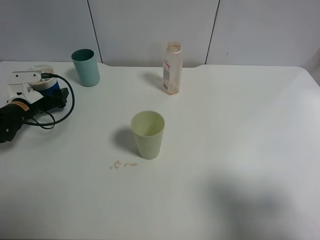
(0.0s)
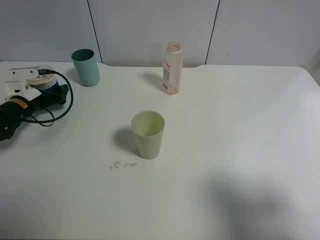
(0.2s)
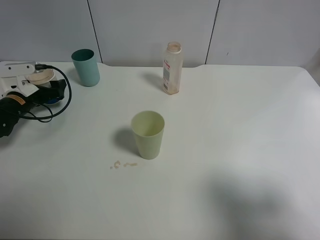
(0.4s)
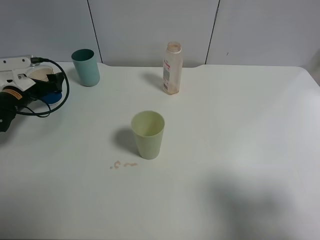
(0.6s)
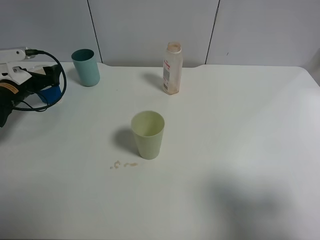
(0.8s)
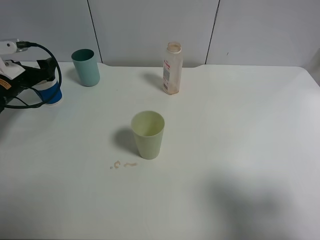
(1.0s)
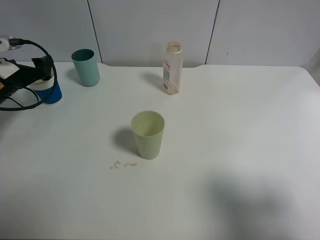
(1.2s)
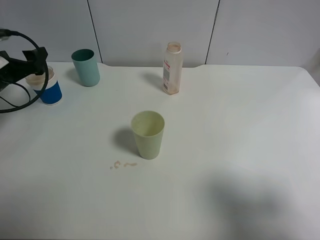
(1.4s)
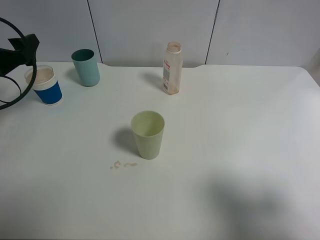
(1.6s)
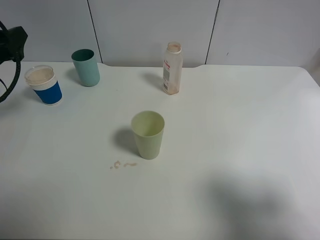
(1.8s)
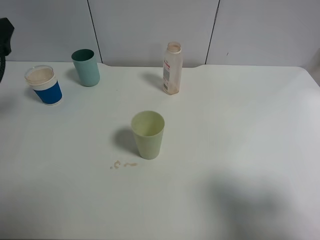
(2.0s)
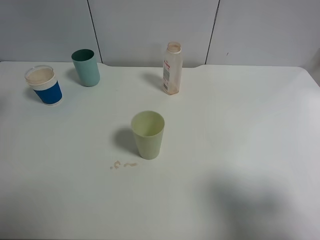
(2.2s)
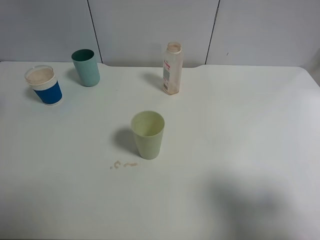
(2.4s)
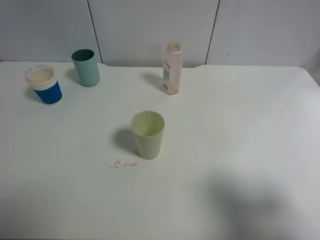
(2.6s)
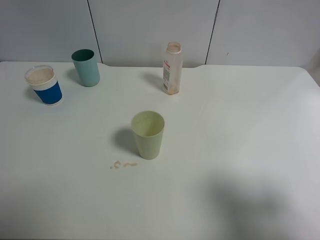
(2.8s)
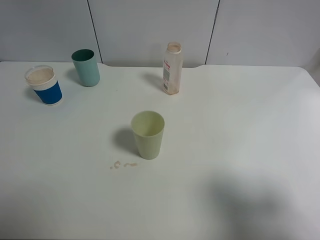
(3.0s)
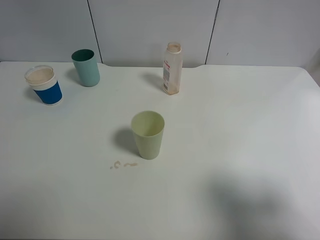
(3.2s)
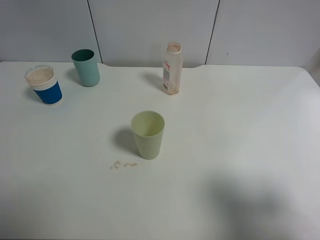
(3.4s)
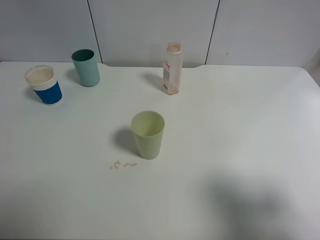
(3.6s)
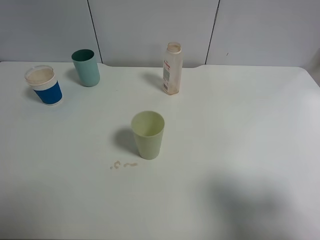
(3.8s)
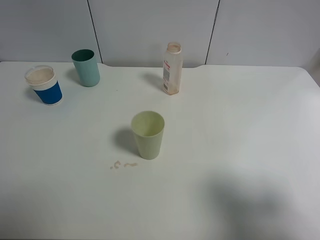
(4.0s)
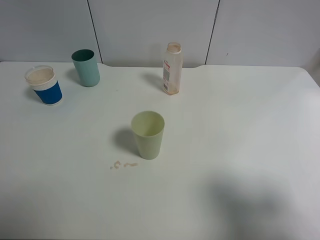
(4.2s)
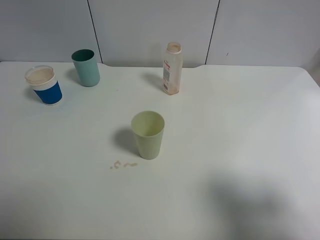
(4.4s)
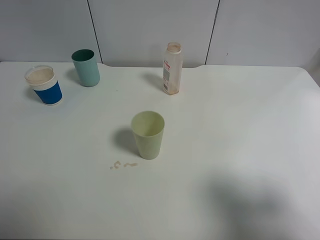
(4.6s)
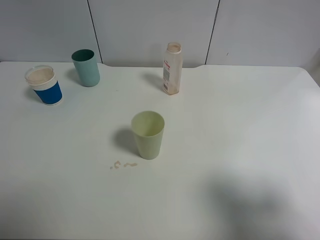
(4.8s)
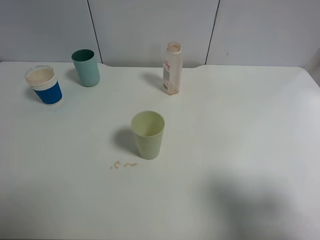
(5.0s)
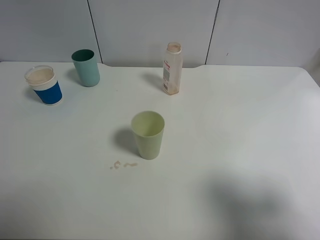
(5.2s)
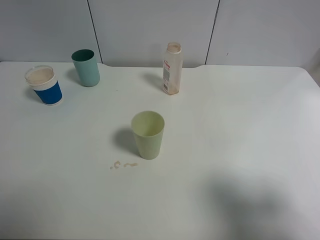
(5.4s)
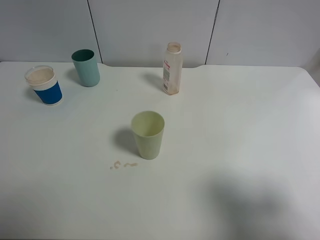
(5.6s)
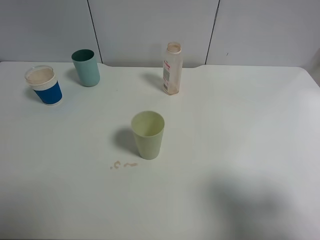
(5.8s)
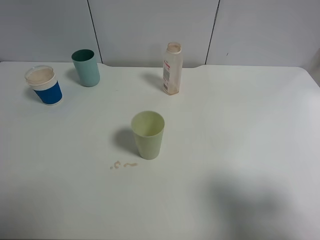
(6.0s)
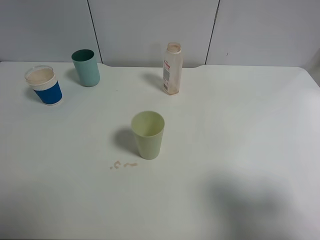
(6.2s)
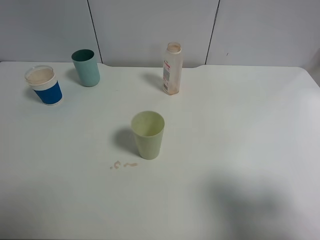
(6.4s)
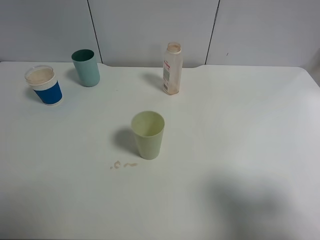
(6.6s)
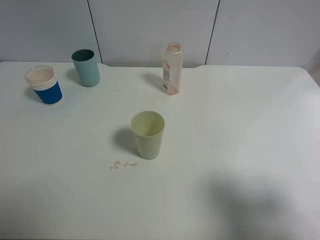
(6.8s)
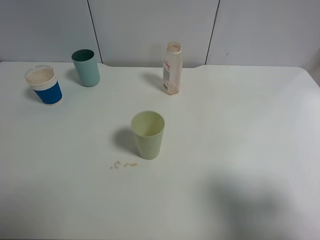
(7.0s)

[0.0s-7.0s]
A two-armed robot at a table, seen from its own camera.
Task of the whole recording: use a clamp to hold the bottle of the drink, pour the beverage into a random cup, then clamp the cup containing the drink and pour the drink into another random cup.
0.0s to 1.4s: The left gripper moves upward, about 15 cm.
1.4s to 2.8s: The left gripper is displaced backward and upward by approximately 20 cm.

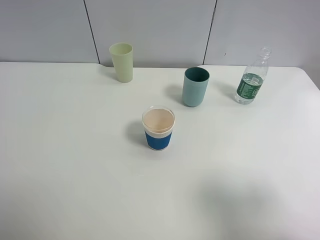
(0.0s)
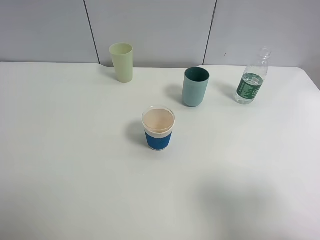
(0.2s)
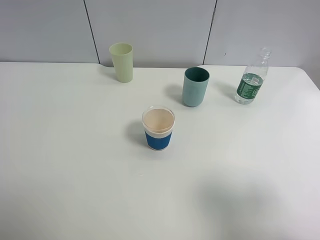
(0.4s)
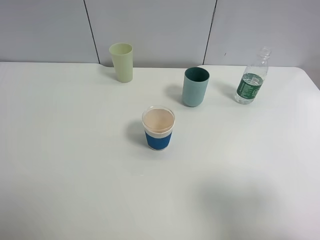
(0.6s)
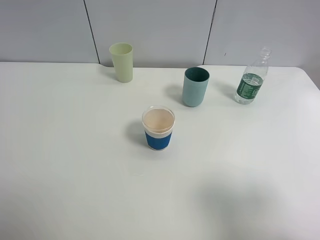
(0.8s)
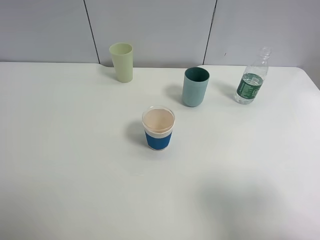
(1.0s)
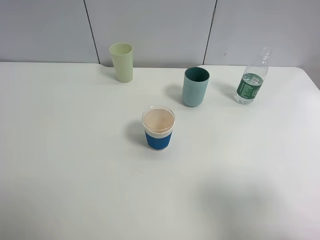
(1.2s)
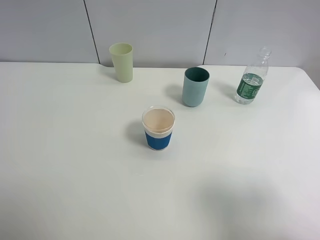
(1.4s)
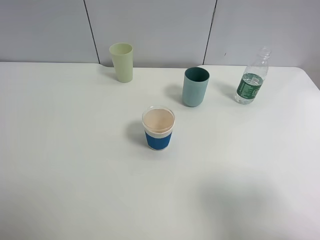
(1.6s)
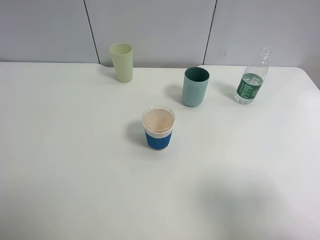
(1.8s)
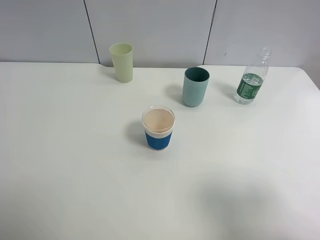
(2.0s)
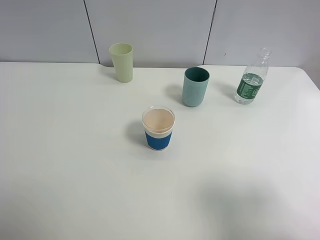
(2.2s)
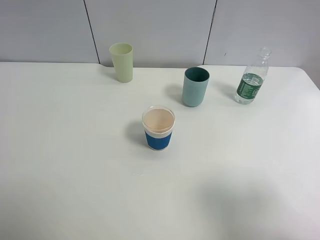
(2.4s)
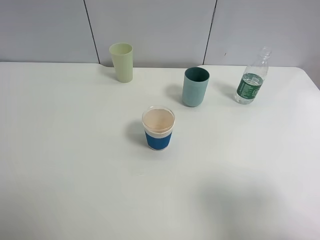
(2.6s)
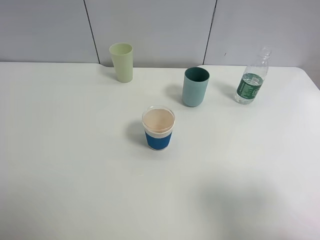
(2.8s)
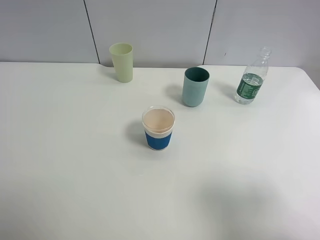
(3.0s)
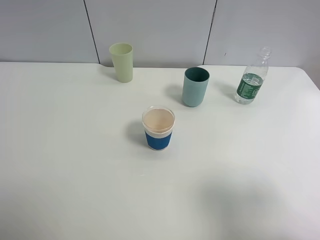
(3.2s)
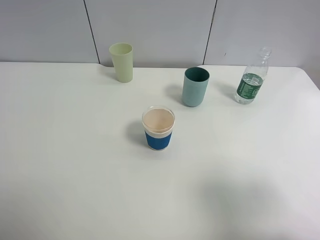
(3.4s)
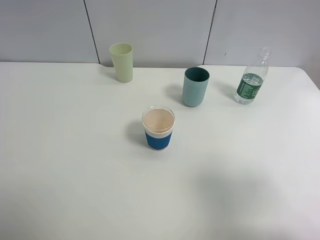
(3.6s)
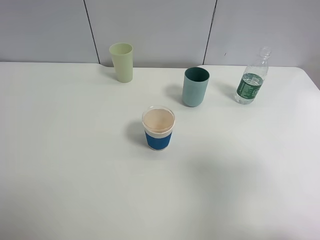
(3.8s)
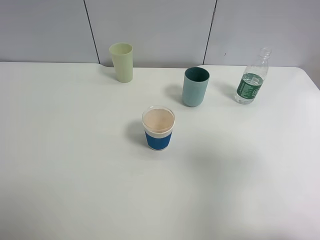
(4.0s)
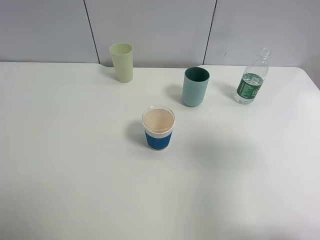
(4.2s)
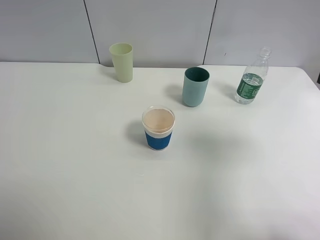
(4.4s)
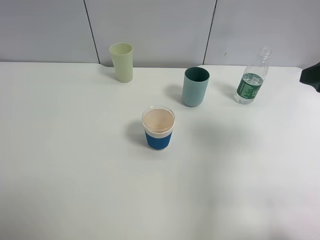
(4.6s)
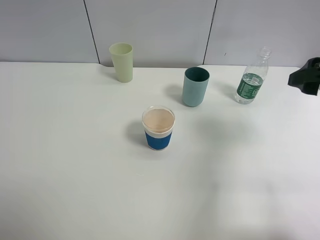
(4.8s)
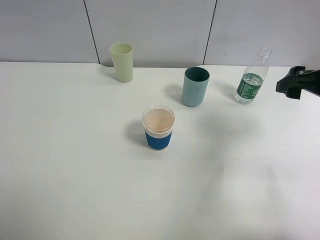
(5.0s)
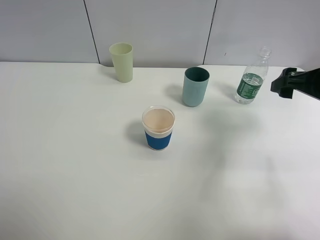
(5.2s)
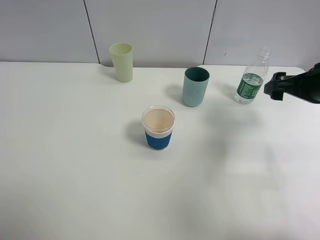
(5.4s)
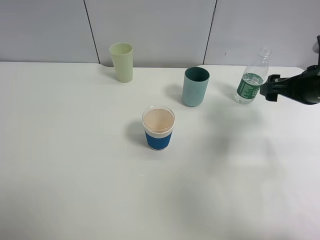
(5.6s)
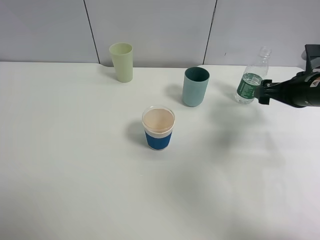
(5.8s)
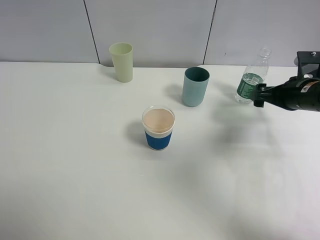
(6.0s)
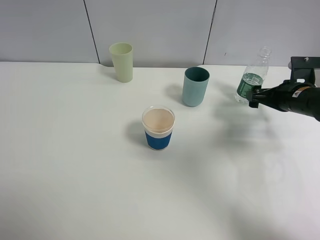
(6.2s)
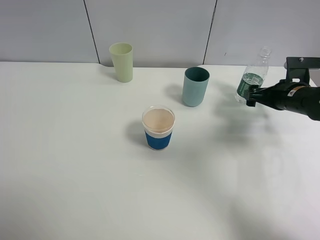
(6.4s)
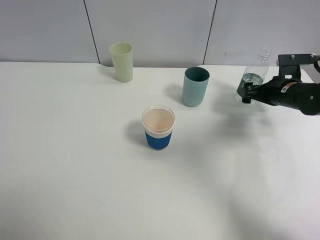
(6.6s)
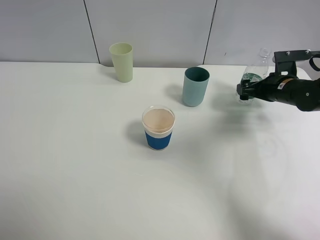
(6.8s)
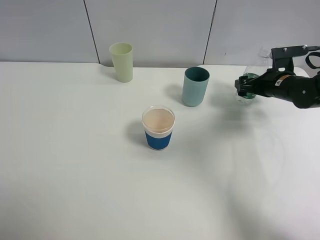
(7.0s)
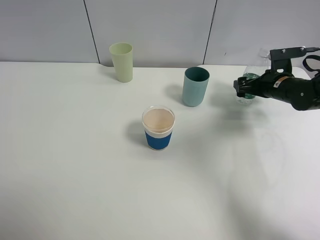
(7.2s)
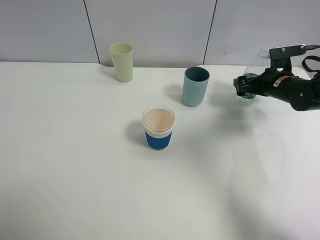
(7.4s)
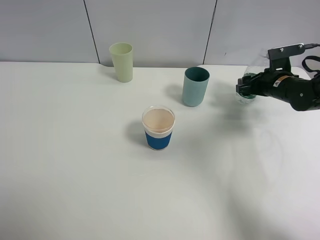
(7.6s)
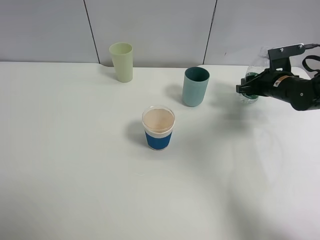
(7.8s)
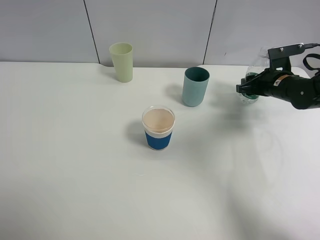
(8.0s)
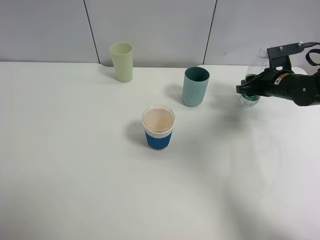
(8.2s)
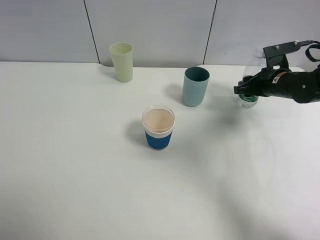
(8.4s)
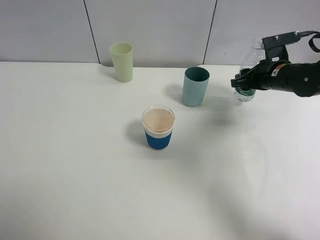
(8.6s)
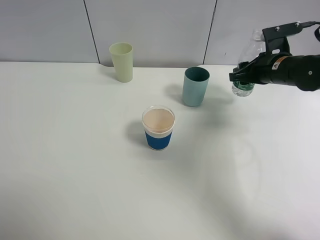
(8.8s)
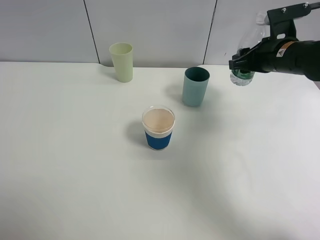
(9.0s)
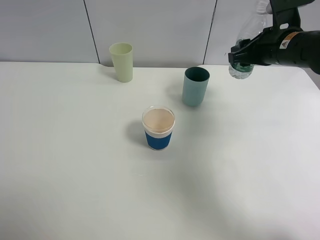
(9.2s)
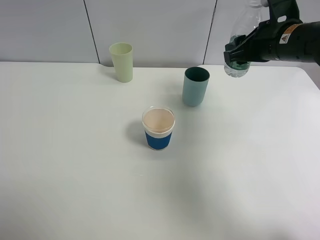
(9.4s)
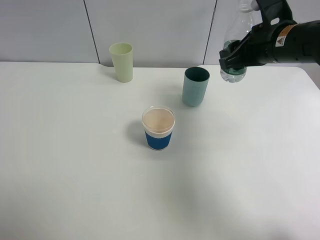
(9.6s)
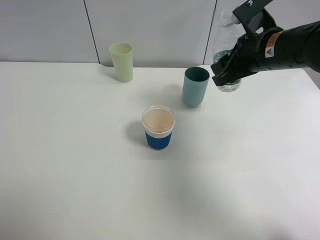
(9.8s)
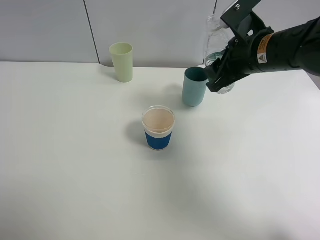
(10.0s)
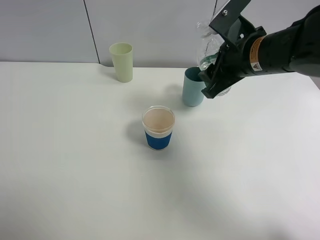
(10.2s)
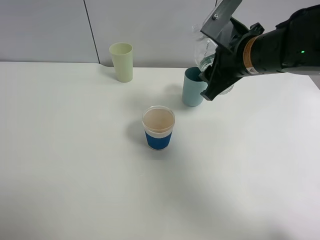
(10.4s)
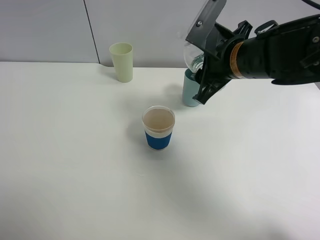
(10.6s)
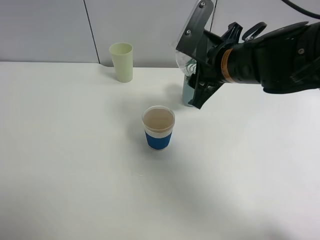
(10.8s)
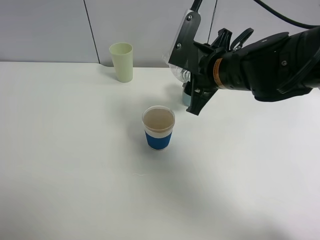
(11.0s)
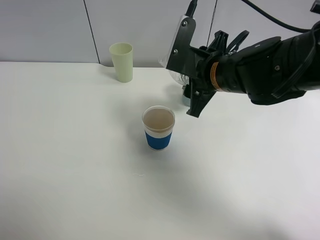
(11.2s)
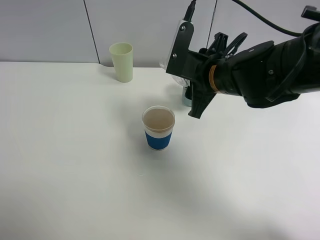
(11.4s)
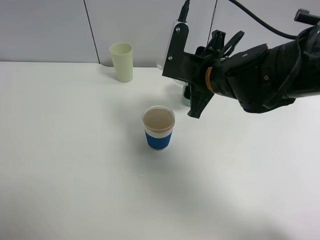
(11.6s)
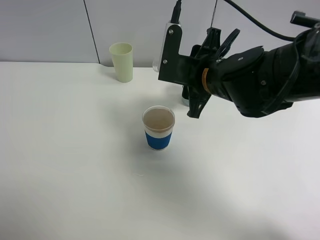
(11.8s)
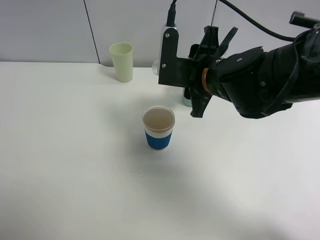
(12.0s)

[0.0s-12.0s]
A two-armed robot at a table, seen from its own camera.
Task of the whole recording: use a clamp to hold the bottle of the drink, pour the beverage into a random cup, then clamp the cup containing the drink and pour the drink into another random cup.
Step, 0.0s to 8.8s: Pick up the water bottle with right gripper.
0.0s to 3.0s: Neither gripper changes place.
3.0s to 4.4s: The right gripper travels forward by about 15 cm.
4.4s to 6.0s: The right gripper travels forward and downward by some 25 cm.
6.0s to 7.6s: The right gripper goes some 5 cm forward, and closes its fingers.
7.6s to 9.0s: The right gripper moves upward and to the left, roughly 10 cm.
9.0s to 10.4s: The right gripper moves to the left and backward, roughly 10 cm.
10.4s to 12.0s: The right gripper is displaced to the left by roughly 5 cm.

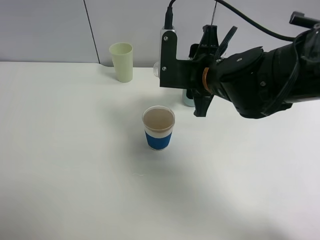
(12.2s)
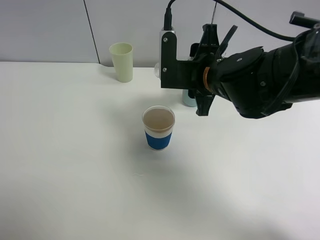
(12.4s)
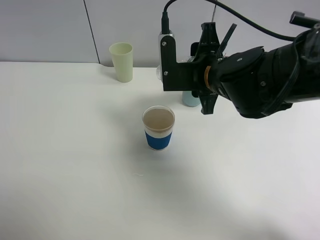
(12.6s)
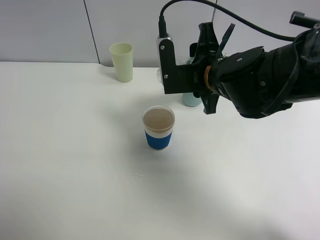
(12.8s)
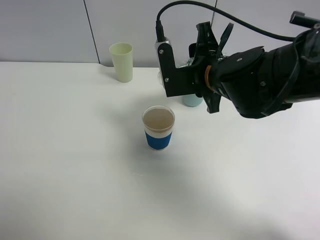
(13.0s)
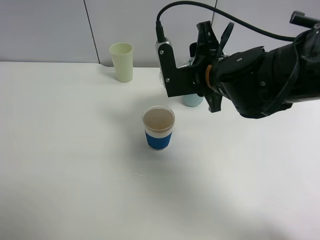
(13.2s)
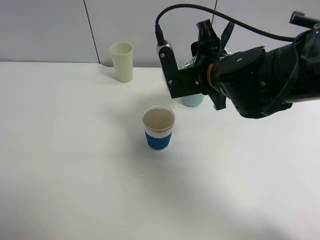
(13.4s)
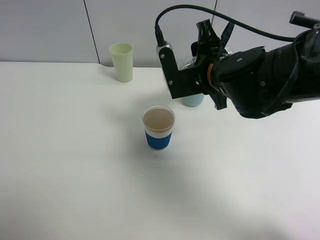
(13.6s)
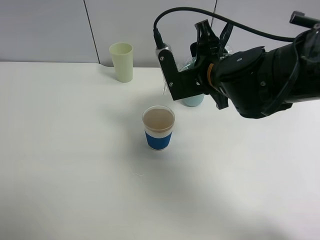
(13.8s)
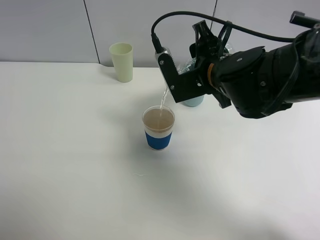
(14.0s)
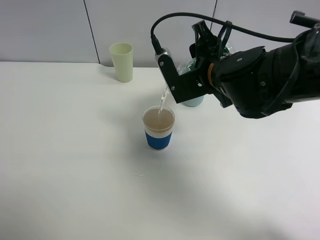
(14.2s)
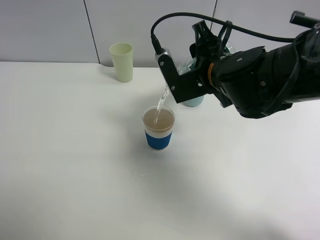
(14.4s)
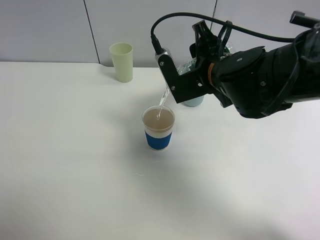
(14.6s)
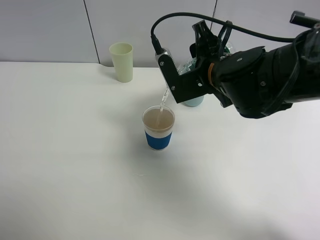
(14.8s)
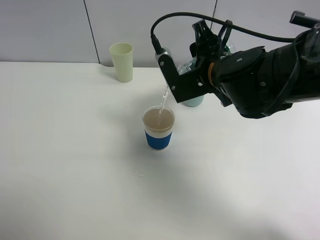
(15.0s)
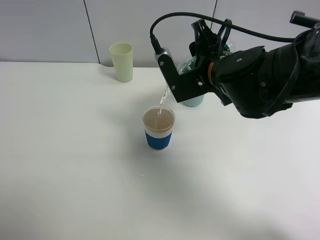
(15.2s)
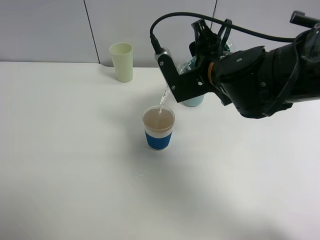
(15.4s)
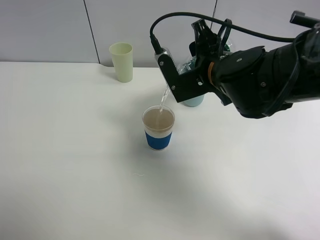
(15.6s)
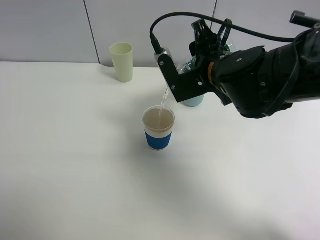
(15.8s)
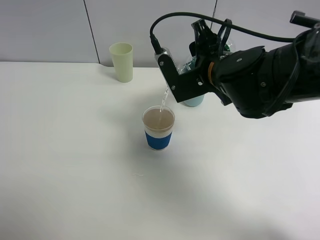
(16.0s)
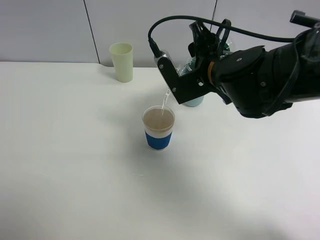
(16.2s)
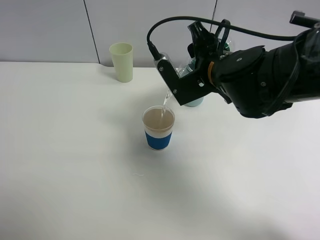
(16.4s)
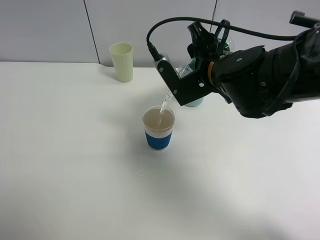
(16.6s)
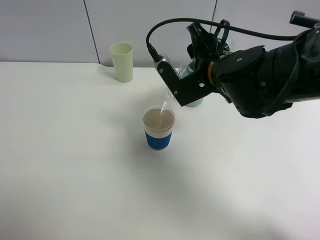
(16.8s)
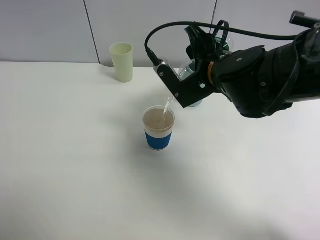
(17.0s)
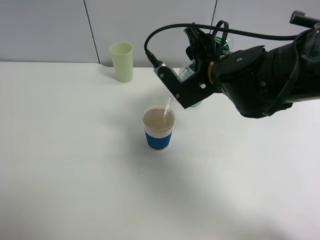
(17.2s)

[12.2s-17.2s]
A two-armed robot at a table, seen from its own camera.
Task of the whole recording: use a clamp to hold the bottle of the drink, pour the beverage into a random cup, then clamp the cup containing the drink and pour the drink into another random cup.
13.8s to 17.2s: There are only small adjustments of the grippers.
